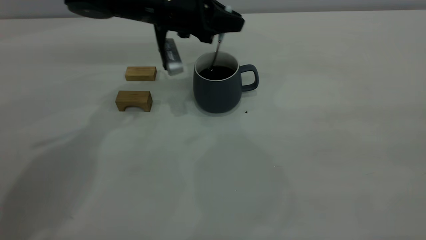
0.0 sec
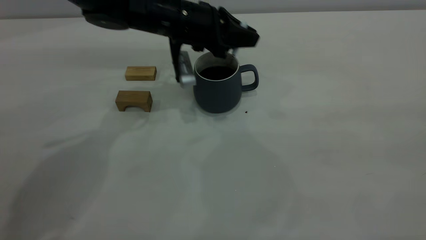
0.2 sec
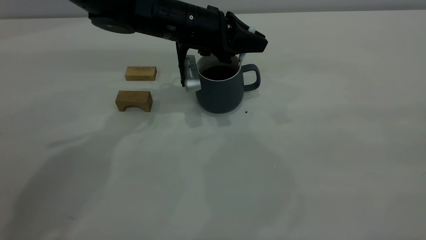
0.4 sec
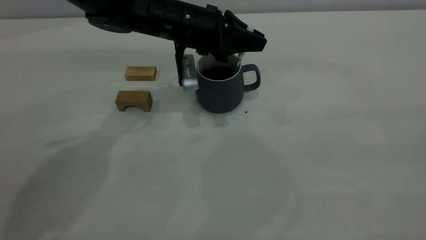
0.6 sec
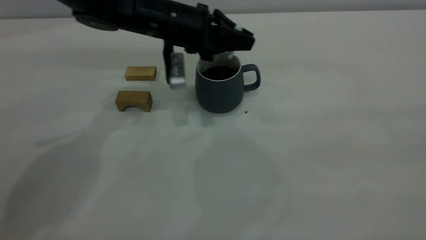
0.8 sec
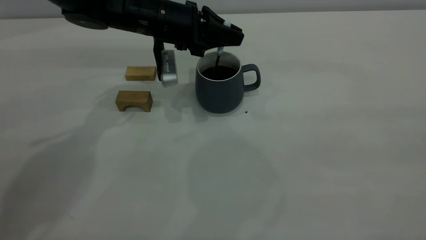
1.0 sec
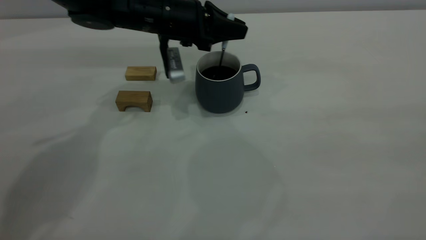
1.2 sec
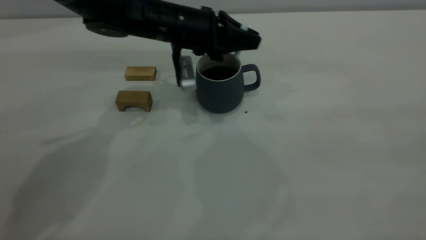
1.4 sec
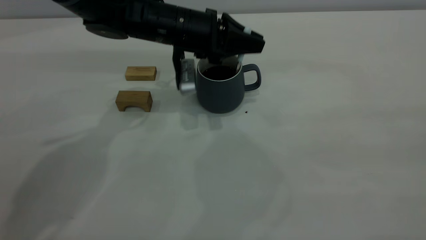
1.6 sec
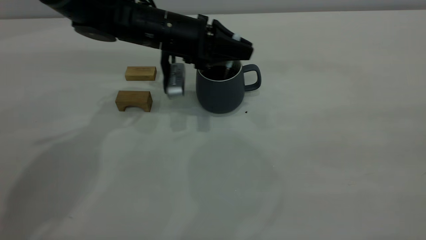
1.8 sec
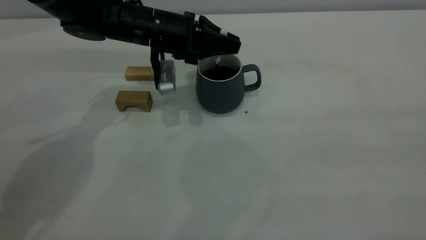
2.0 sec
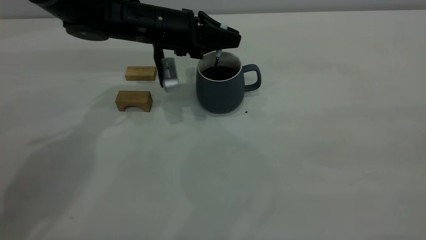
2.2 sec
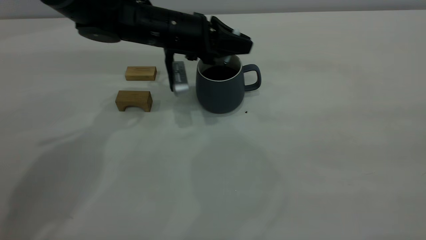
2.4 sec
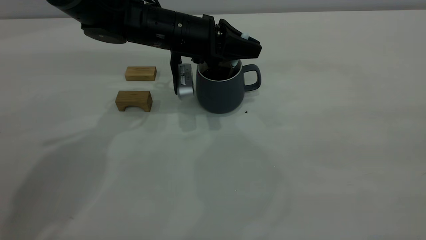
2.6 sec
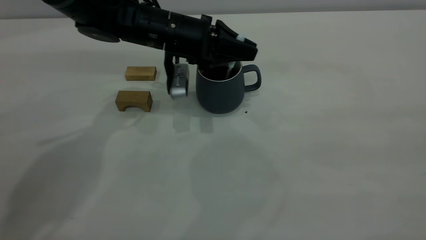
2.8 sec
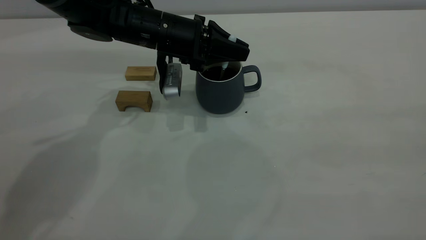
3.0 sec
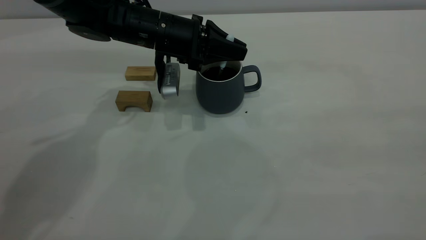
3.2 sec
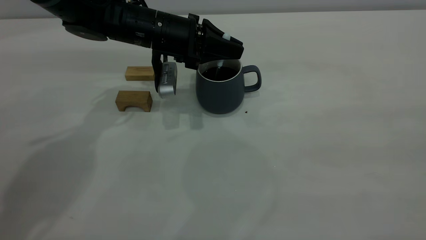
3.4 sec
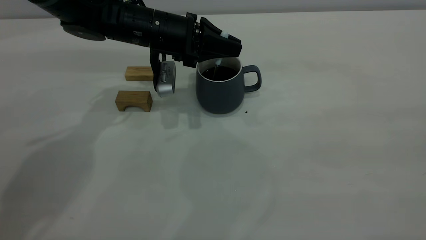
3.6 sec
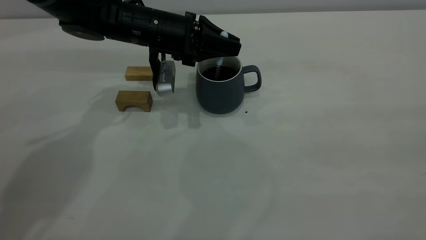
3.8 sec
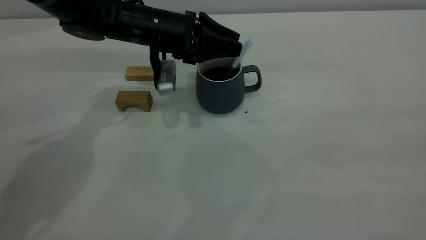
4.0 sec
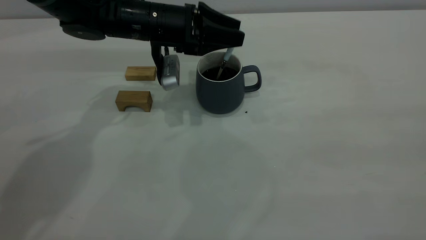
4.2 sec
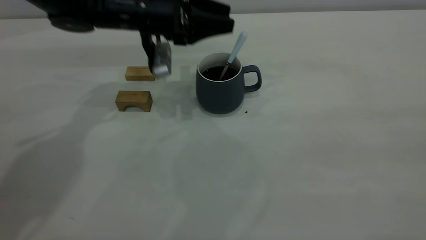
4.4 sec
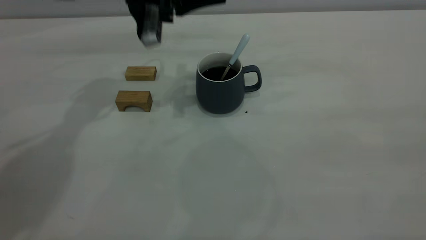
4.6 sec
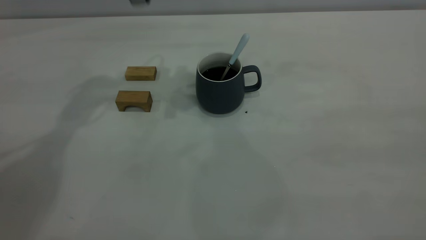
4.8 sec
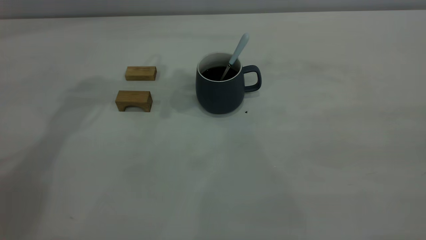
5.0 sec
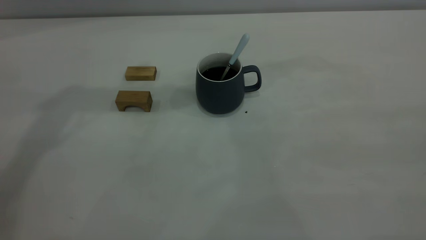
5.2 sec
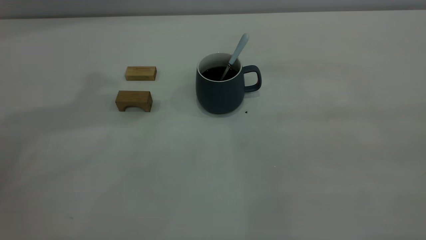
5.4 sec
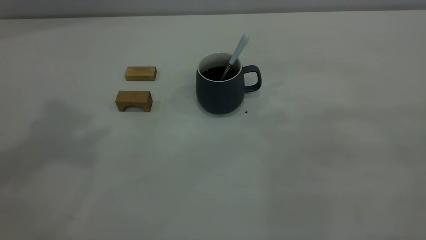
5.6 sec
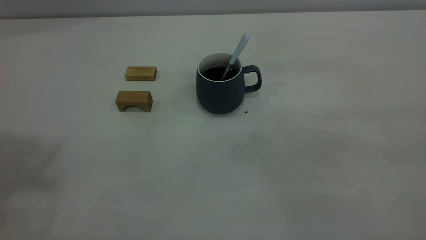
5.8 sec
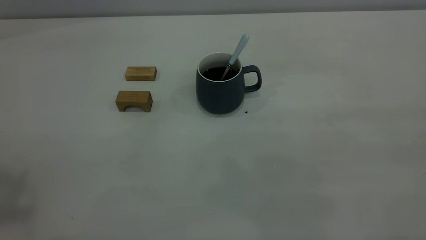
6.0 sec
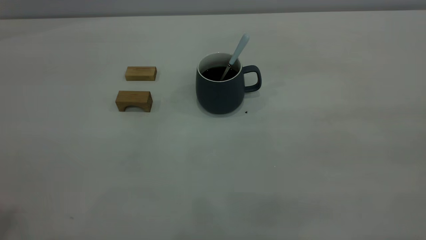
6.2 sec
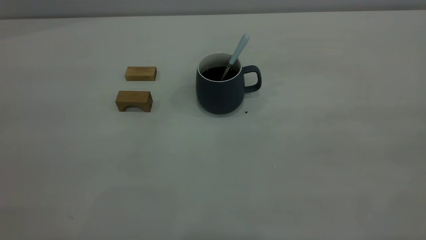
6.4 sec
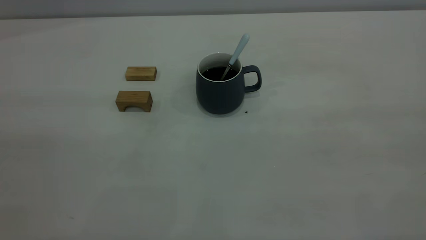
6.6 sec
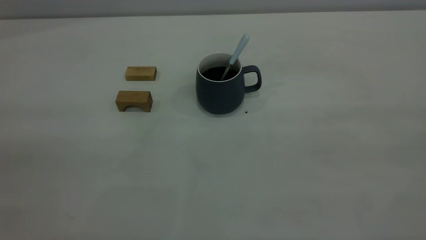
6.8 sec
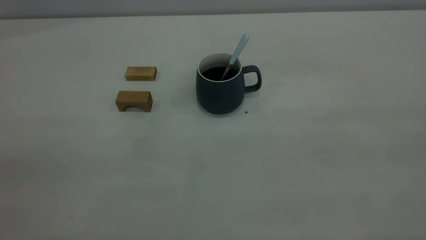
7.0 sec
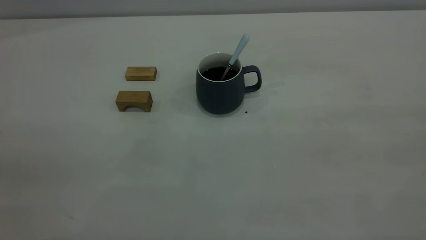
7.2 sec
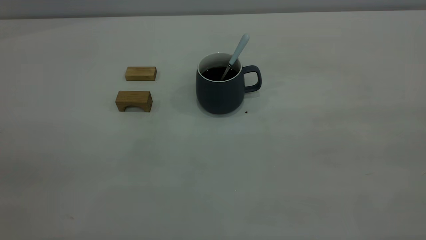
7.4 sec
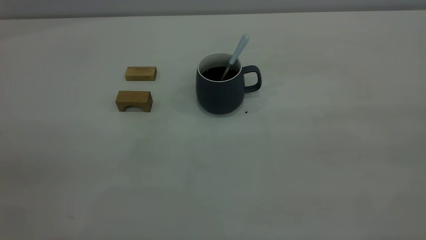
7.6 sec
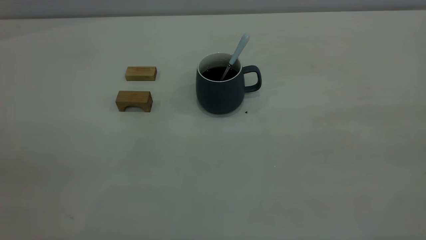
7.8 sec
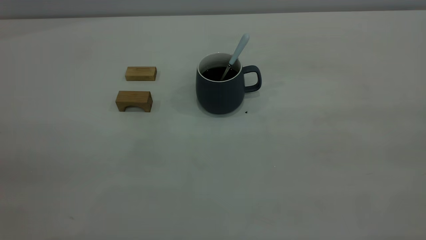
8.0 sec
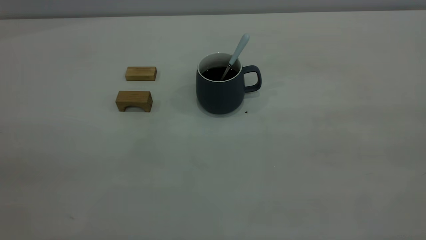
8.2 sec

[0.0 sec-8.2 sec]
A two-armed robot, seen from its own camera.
Step, 0.0 sec to 4.4 sec: Stir the coffee in the cup.
0.0 sec to 3.2 sec: The grippers move only a little.
3.2 sec to 5.0 sec: The left gripper goes approximately 20 cm upward, and opens.
